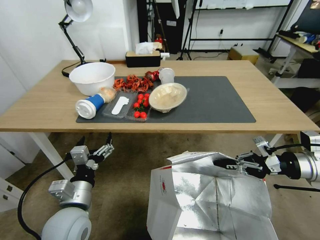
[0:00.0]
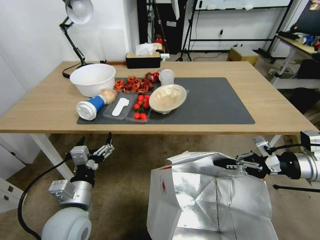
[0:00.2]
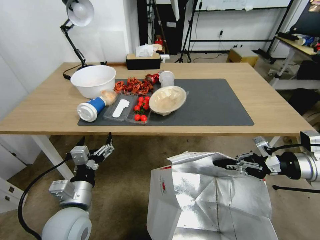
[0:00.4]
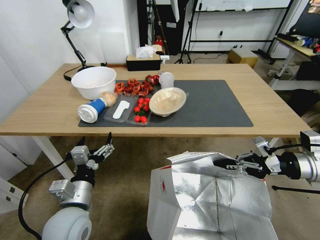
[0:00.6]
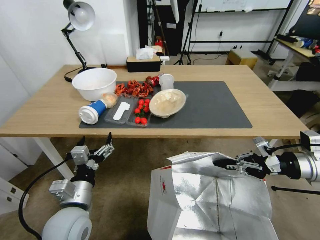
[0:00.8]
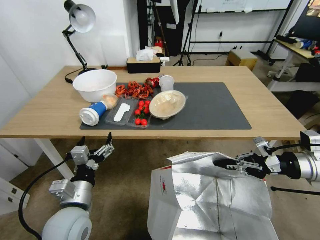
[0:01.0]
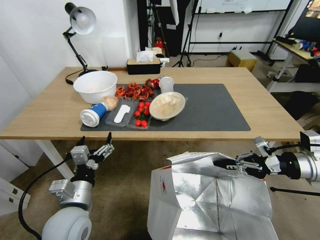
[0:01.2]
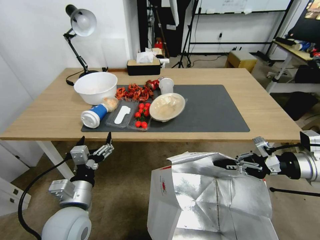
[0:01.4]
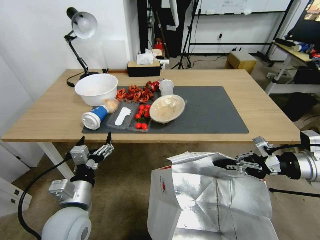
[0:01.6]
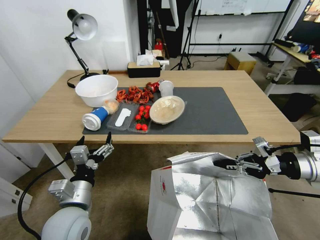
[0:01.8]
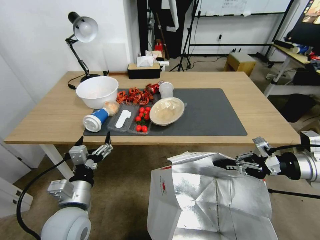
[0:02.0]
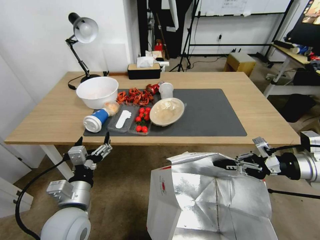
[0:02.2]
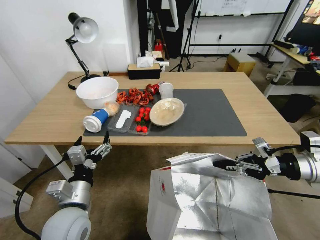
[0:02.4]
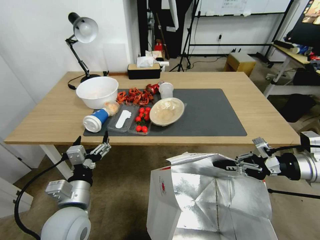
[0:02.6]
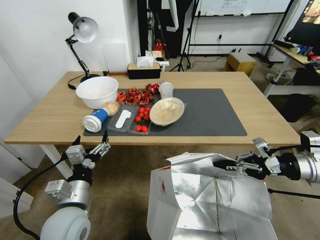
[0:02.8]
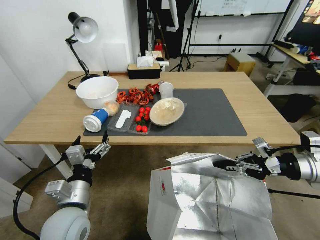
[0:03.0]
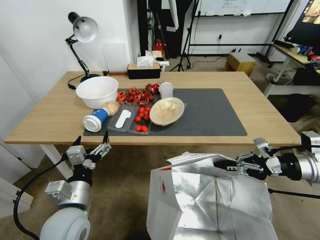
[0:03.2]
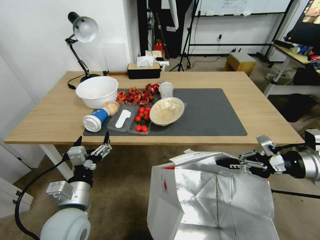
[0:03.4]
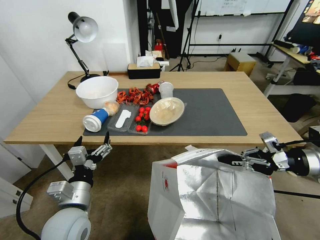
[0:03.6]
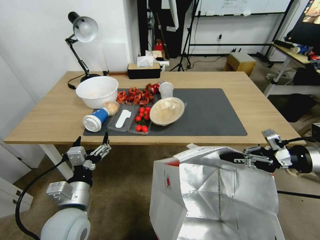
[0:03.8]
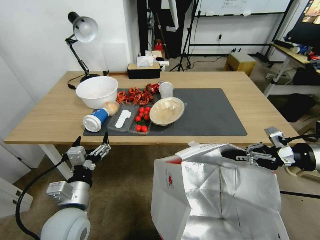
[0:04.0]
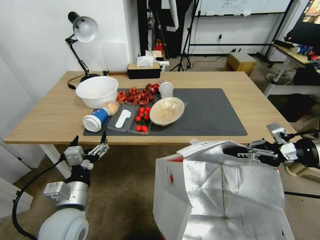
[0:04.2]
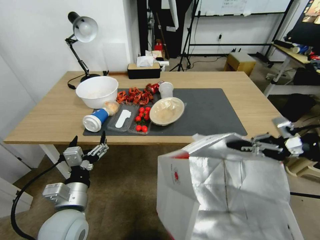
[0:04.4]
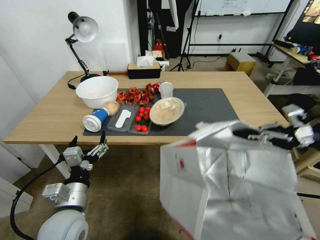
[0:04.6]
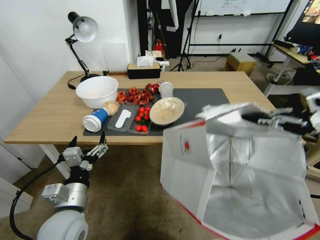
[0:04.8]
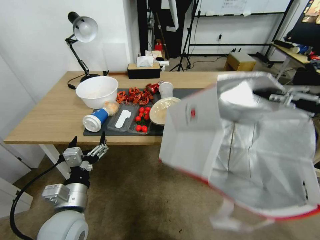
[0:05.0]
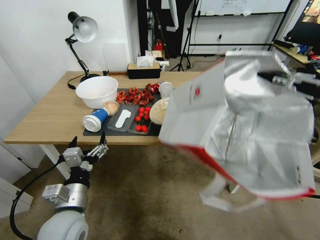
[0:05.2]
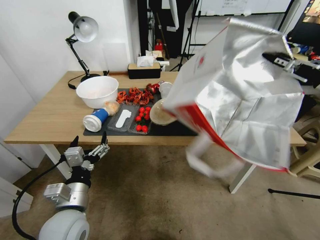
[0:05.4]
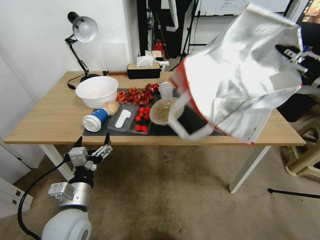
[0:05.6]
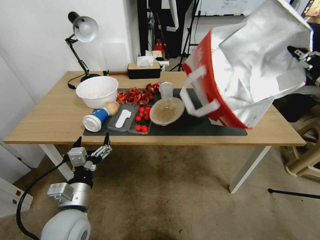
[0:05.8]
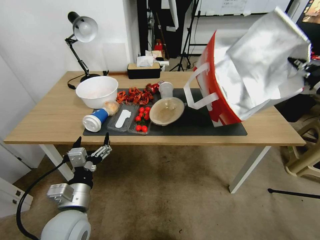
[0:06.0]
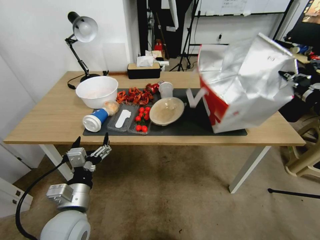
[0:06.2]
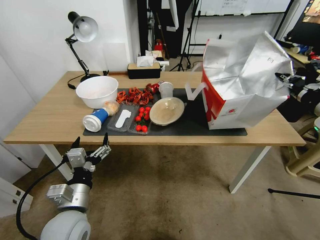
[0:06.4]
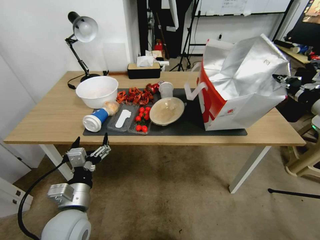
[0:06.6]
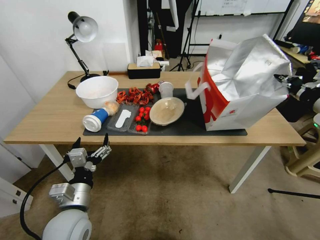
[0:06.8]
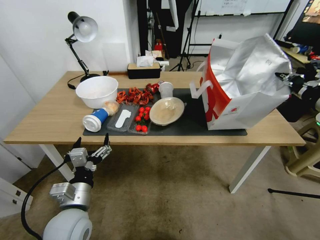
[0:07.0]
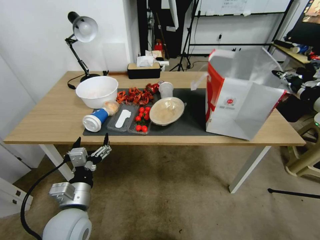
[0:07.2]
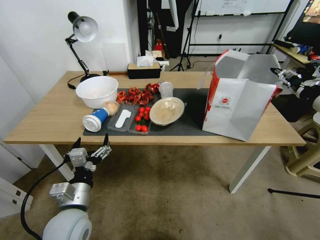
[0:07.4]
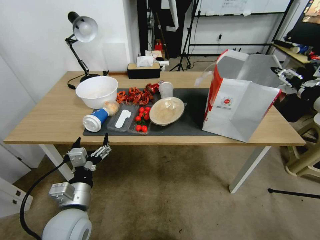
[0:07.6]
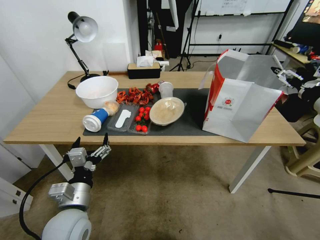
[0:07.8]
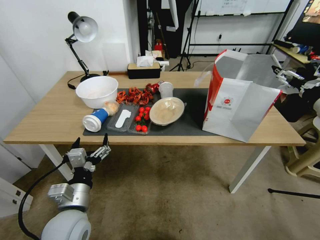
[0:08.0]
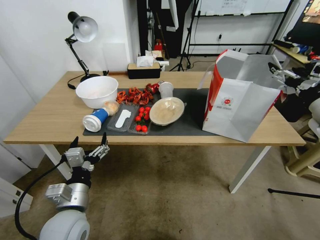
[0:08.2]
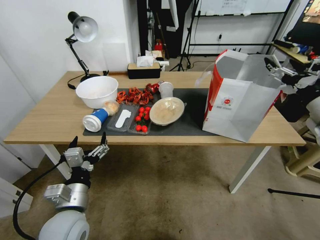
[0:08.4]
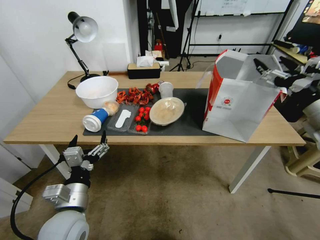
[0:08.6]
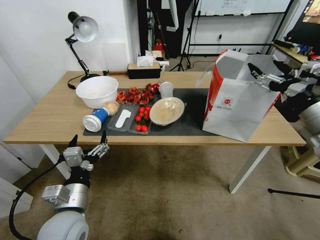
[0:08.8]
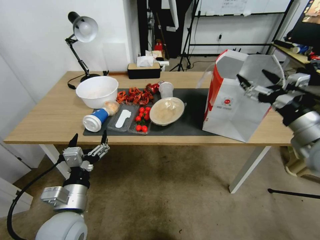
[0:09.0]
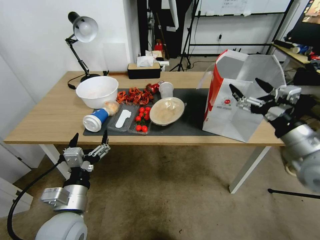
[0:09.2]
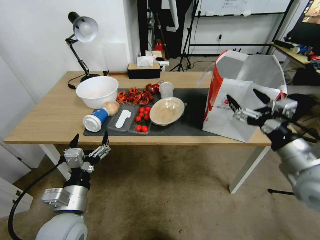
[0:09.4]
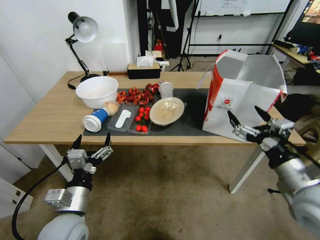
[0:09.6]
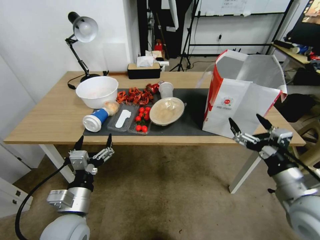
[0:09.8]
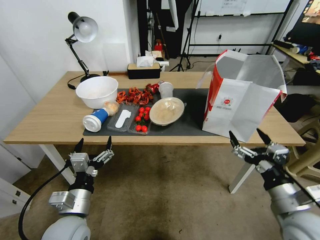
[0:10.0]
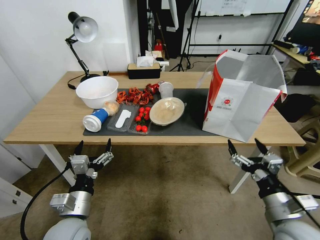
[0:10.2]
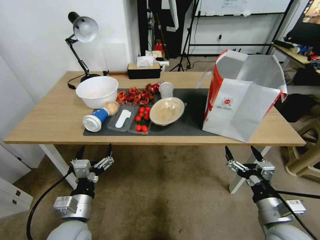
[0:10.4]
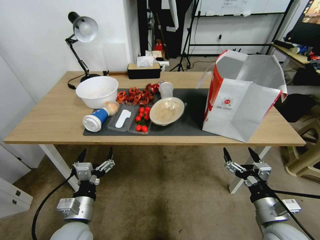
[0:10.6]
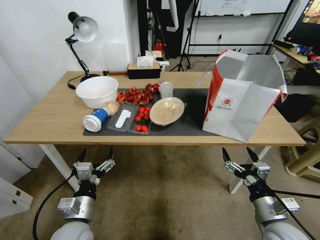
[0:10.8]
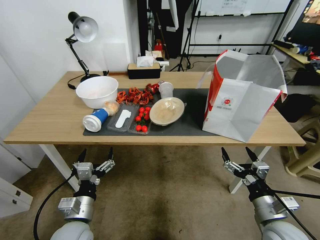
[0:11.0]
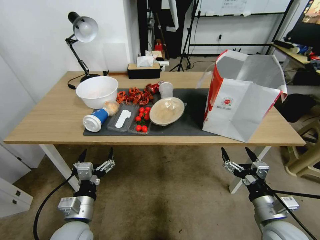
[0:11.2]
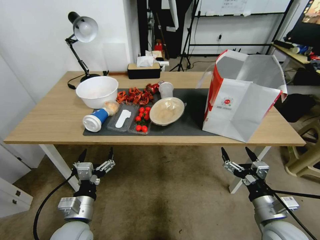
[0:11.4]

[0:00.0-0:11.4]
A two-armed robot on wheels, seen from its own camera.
Task of the whole recording: Pick up the food delivery bag from the floor and place it on the table.
0:02.8 to 0:04.2: There are only small adjustments of the grippers.
0:04.2 to 0:05.6: The right gripper is displaced upward by approximately 10 cm.
0:05.6 to 0:07.2: The right gripper shifts by some 5 cm.
0:07.2 to 0:08.6: The right gripper opens up.
0:08.6 to 0:10.0: The right gripper travels downward, backward and to the left by approximately 25 cm.
0:10.0 to 0:11.4: The right gripper travels downward by approximately 10 cm. Meanwhile the left gripper moves approximately 5 cm.

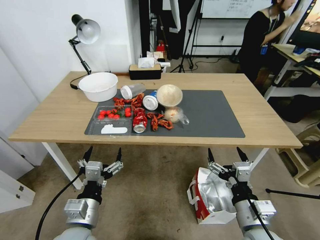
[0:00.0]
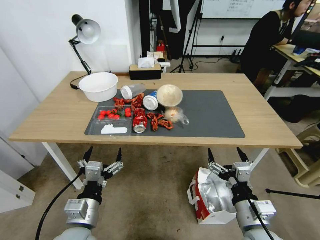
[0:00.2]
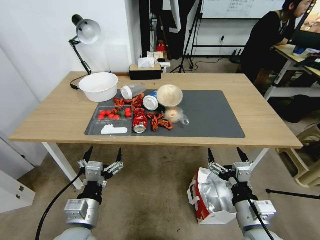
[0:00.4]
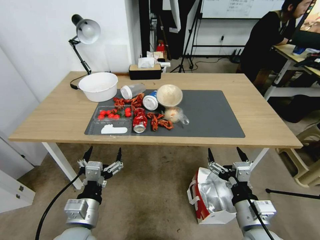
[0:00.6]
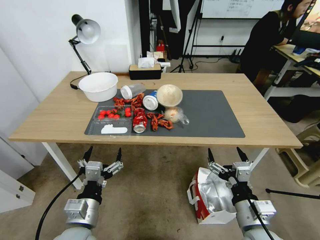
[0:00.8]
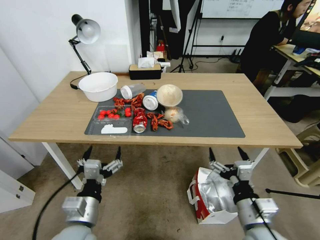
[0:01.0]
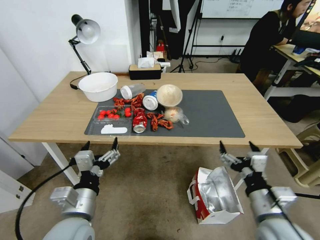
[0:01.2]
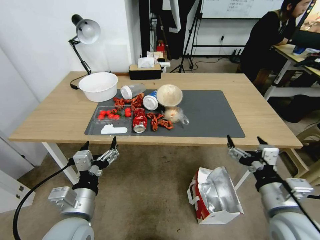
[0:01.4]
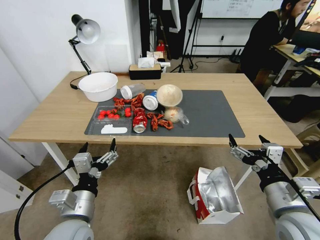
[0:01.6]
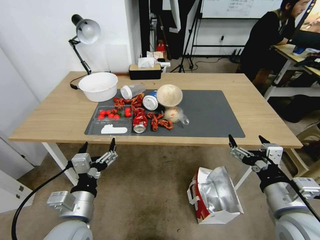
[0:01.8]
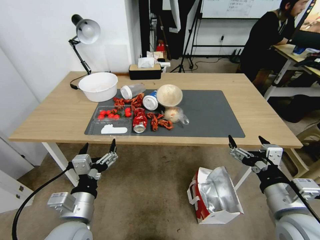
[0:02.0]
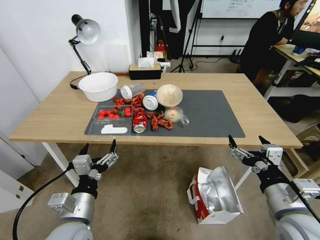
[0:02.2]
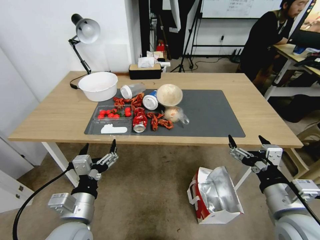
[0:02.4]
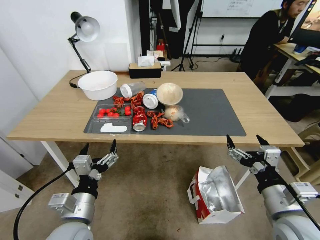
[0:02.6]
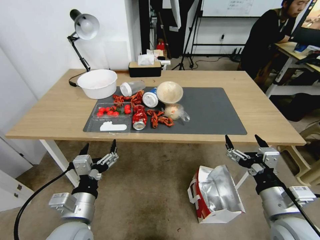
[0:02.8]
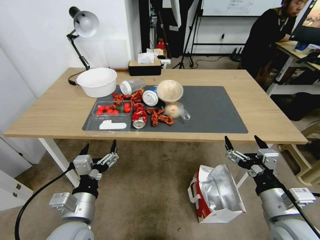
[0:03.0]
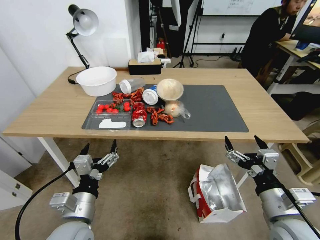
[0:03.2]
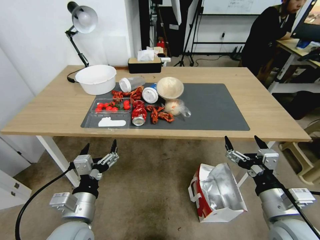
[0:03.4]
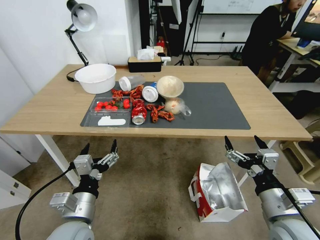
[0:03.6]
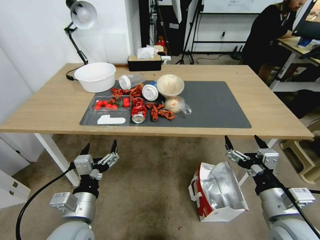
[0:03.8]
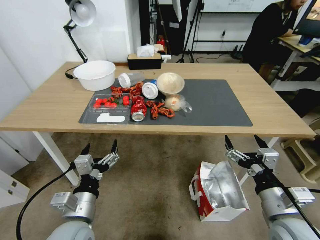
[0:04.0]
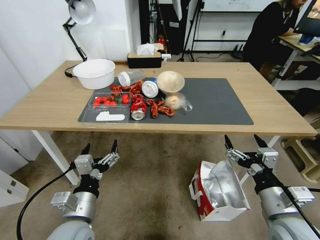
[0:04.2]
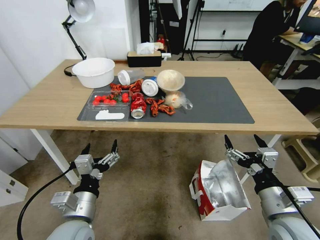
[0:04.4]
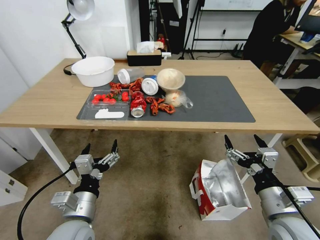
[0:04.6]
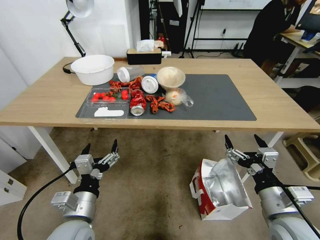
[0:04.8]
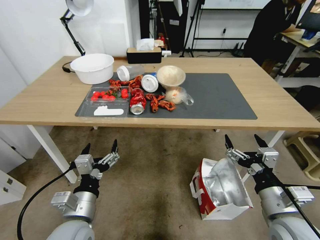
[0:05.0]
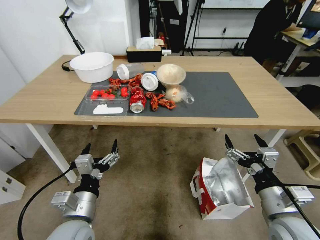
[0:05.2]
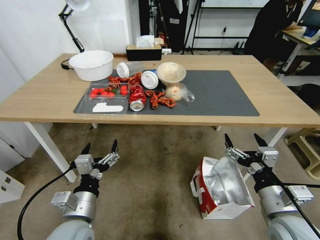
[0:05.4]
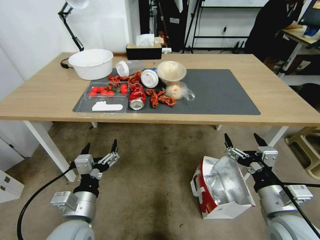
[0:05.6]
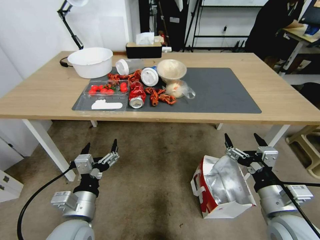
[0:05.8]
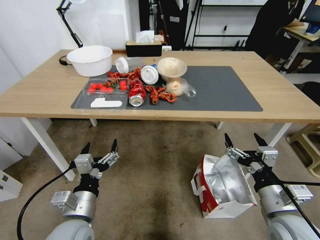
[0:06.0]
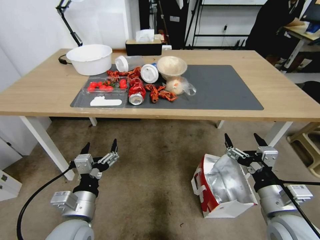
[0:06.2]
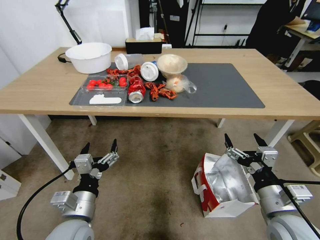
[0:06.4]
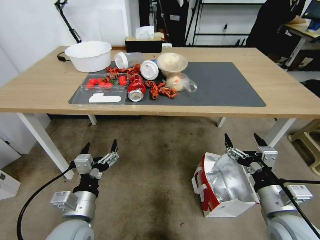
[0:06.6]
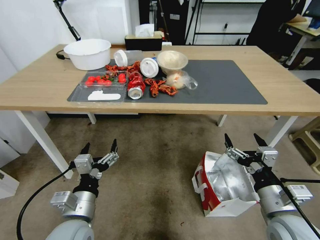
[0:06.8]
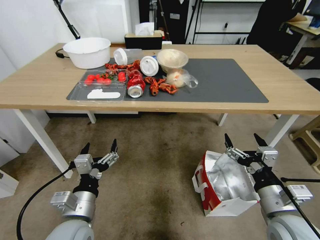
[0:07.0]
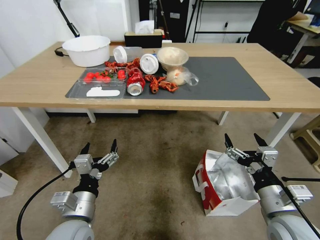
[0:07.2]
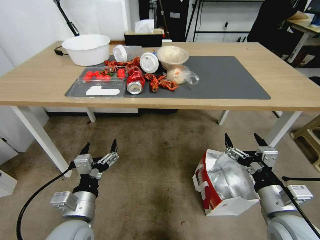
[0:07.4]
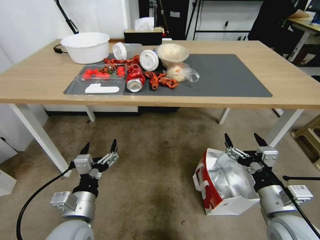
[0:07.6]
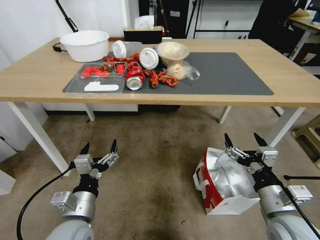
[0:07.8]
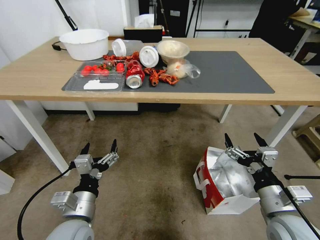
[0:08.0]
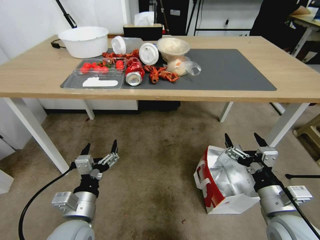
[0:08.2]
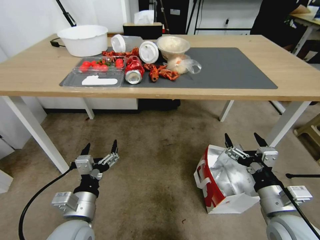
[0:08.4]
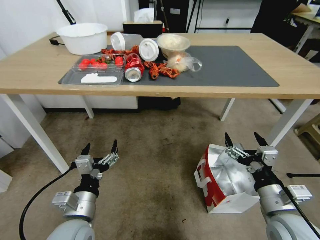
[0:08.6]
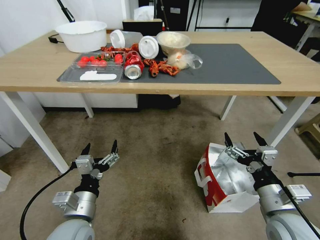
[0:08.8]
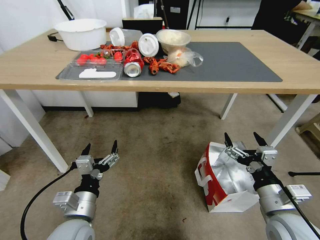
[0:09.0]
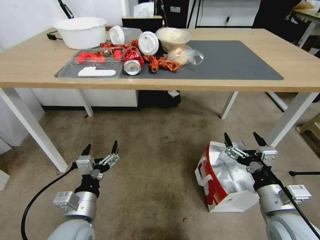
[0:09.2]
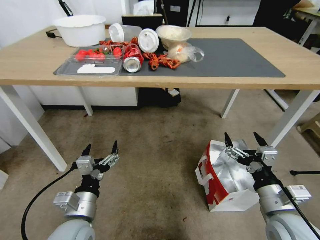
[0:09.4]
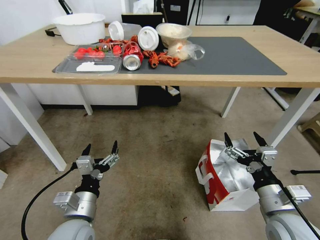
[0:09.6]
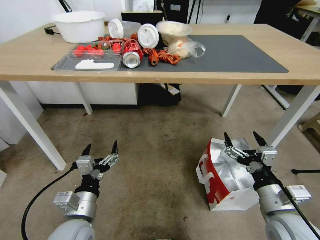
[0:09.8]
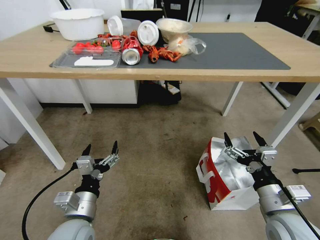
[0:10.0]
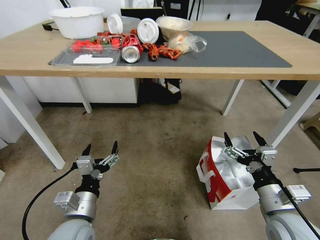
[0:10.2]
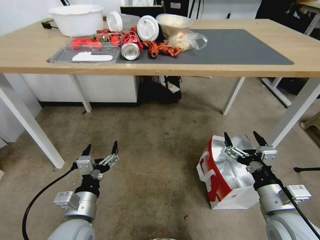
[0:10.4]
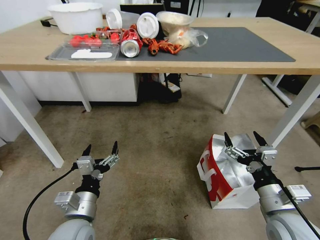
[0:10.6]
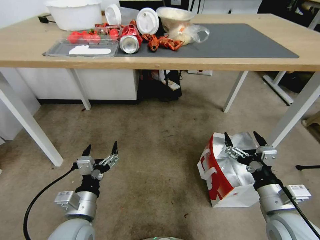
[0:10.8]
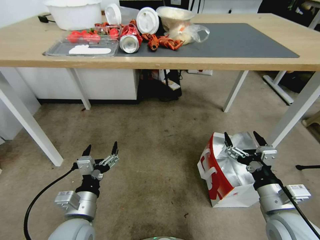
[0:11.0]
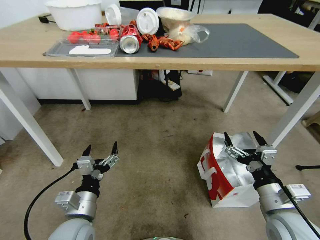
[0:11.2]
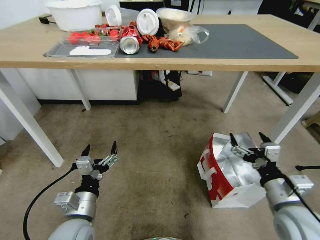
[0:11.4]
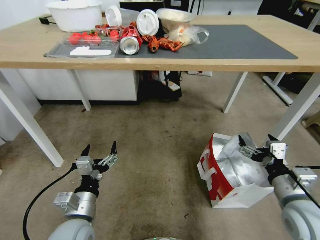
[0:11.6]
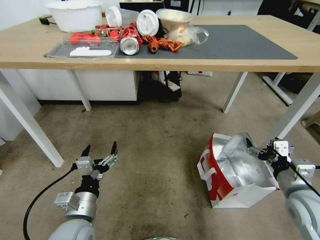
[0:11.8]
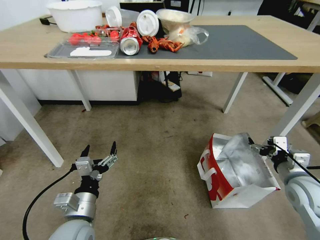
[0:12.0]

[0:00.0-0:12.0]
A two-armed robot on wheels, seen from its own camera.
Task of the whole recording: Pick up the food delivery bag from the floor and place it on the table.
0:10.4 to 0:12.0: The right gripper moves to the right and forward, some 15 cm.
